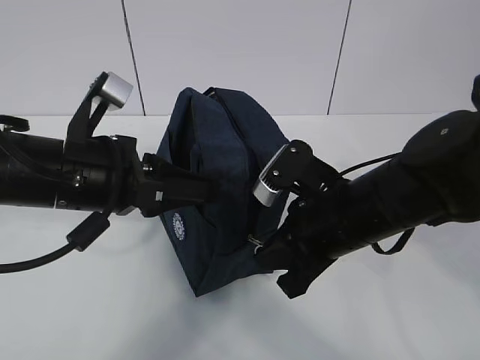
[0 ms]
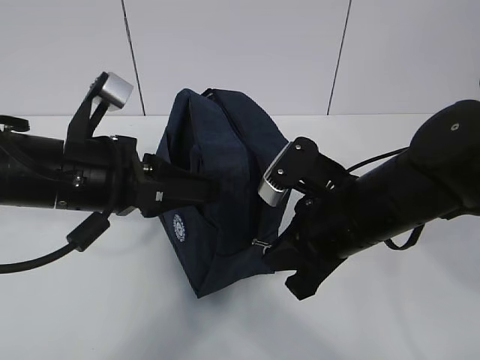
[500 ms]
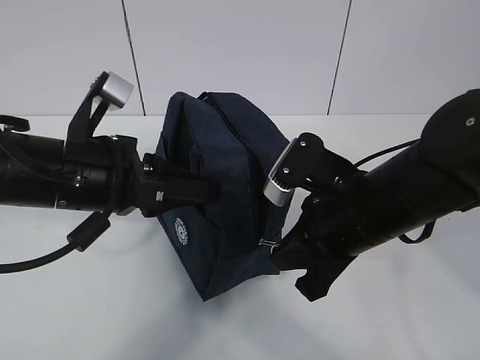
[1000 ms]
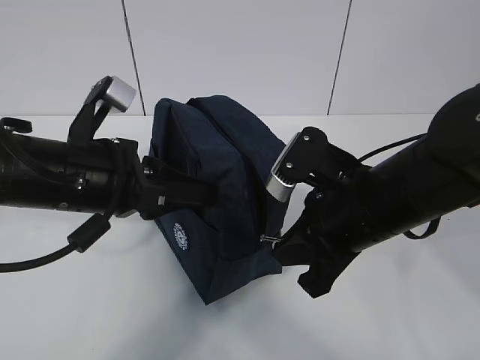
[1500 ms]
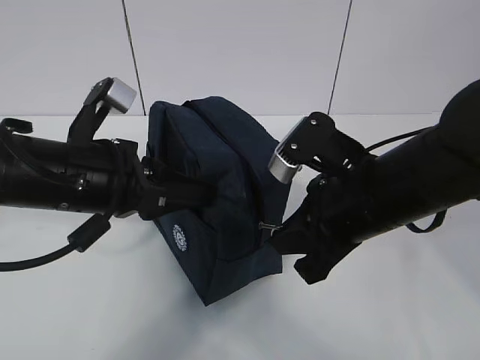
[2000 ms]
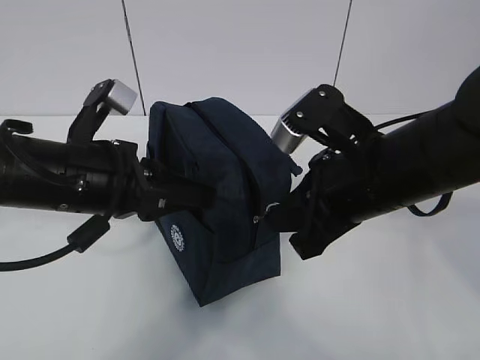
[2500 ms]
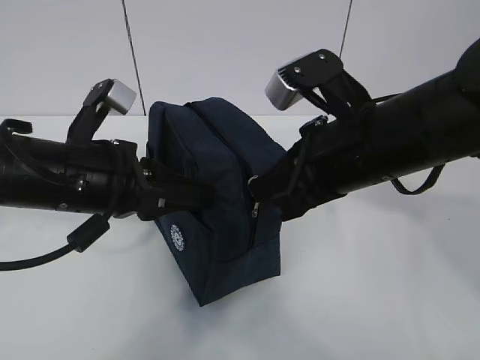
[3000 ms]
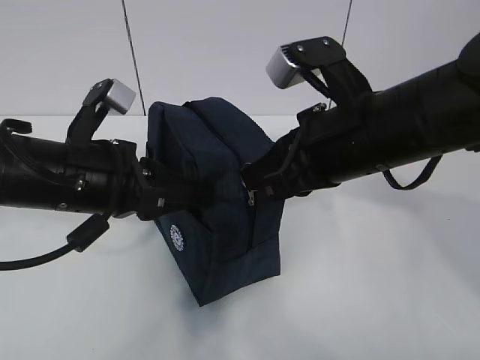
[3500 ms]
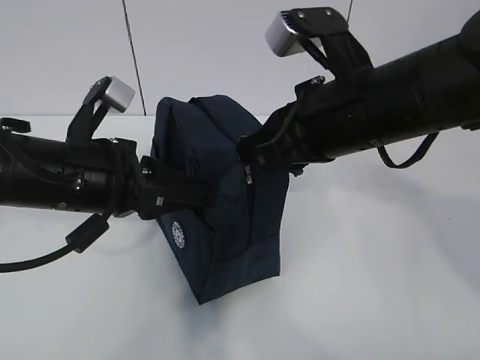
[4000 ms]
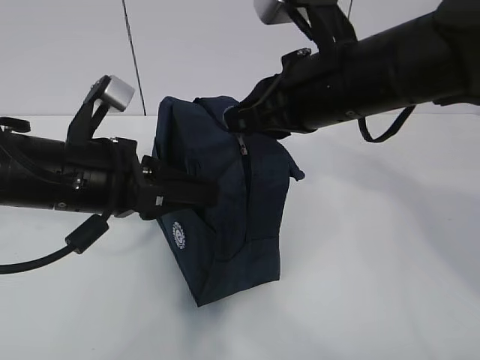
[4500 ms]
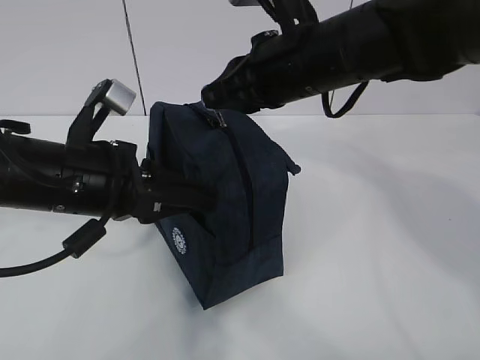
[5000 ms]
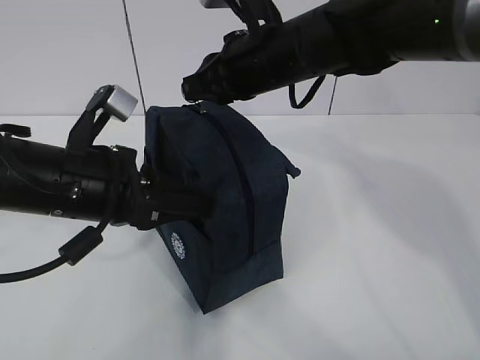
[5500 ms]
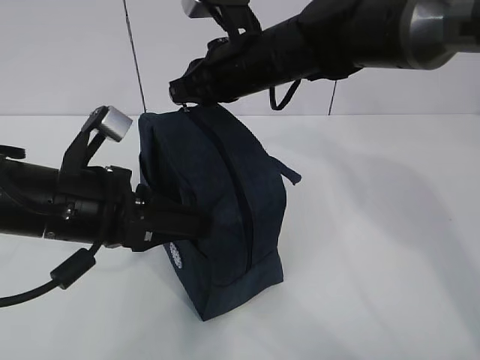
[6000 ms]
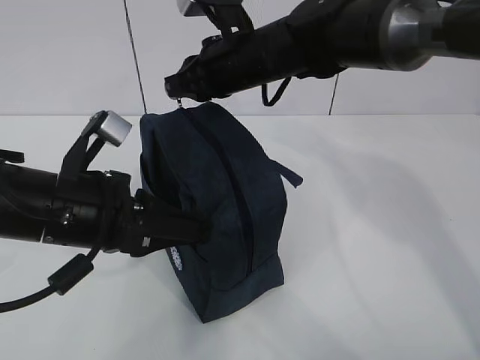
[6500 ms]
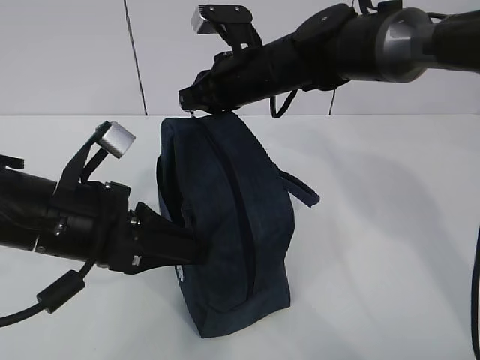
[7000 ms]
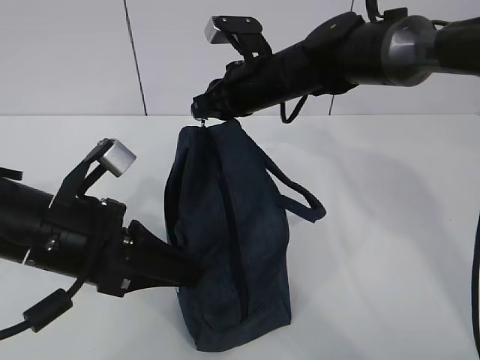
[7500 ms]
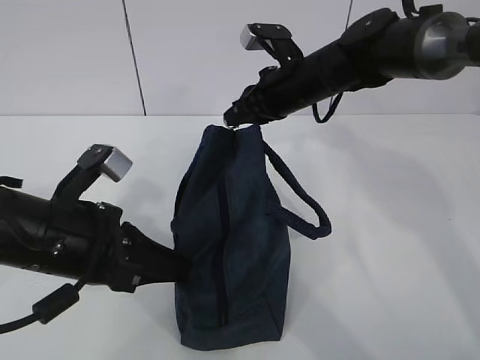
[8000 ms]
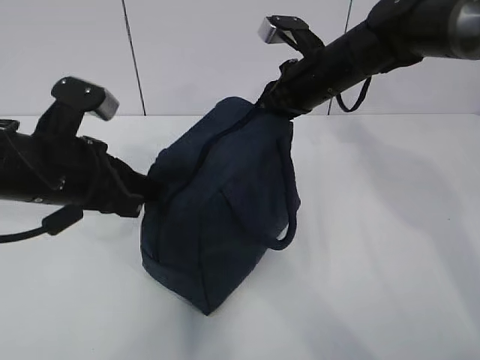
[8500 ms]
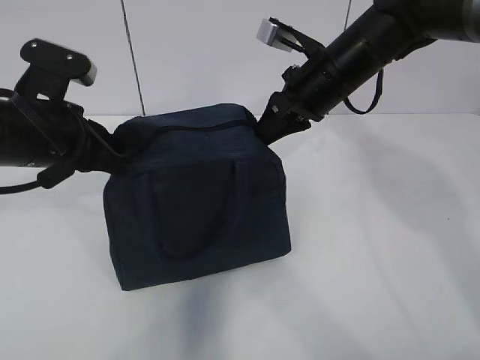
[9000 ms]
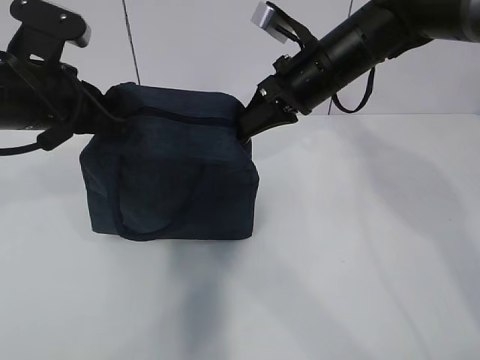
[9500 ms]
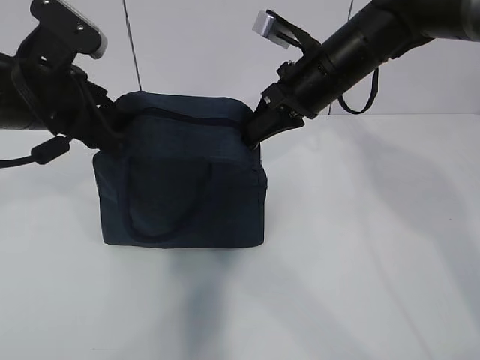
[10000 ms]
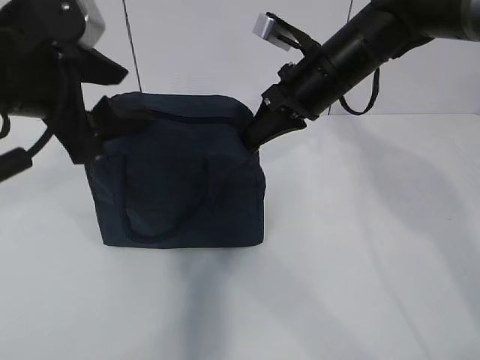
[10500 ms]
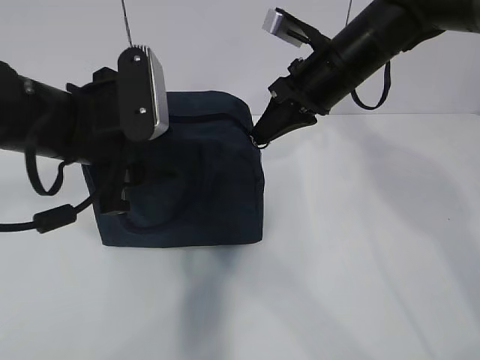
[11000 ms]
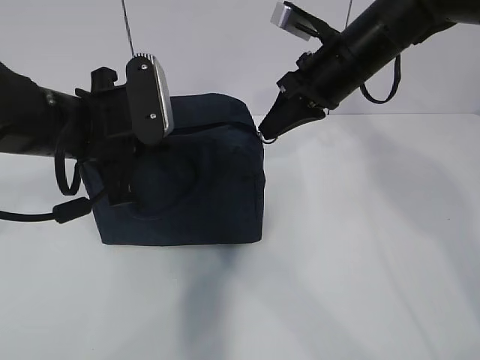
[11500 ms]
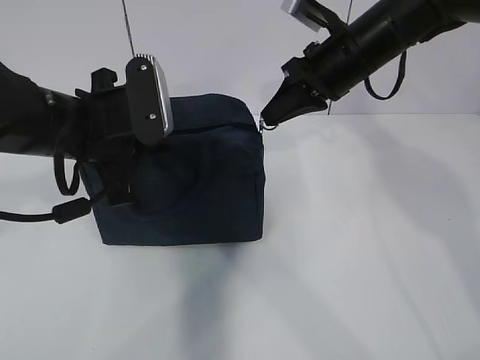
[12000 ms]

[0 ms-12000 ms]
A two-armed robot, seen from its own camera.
0 ms to 2000 ms: The grippers make only small movements.
2000 ms to 4000 ms: The right gripper moves upward, some 5 cm.
4000 ms to 6000 ms: The right gripper goes about 15 cm forward and to the left.
6000 ms to 8000 ms: The right gripper travels to the right by about 5 cm.
8000 ms to 10000 ms: The left gripper is displaced forward and upward by roughly 10 cm, and opens its fingers, while the right gripper changes place by approximately 5 cm.
10000 ms to 12000 ms: The left gripper closes up.

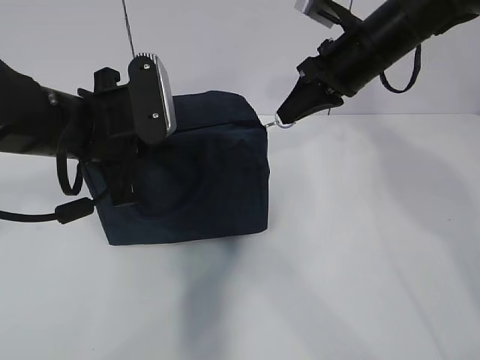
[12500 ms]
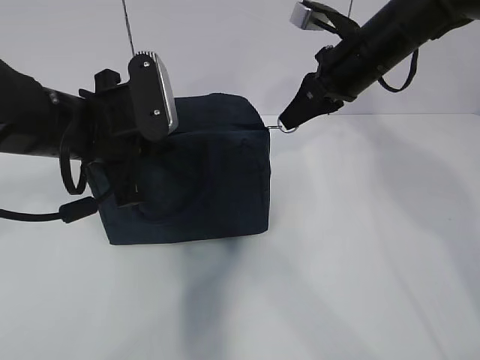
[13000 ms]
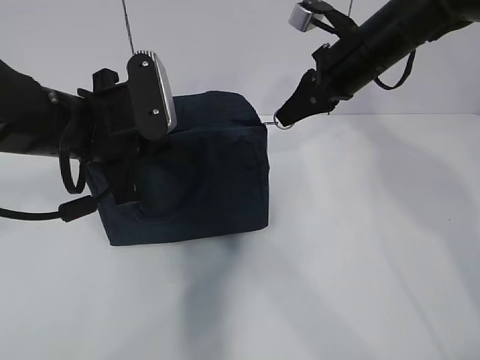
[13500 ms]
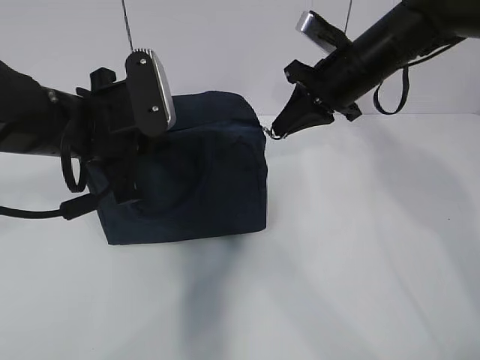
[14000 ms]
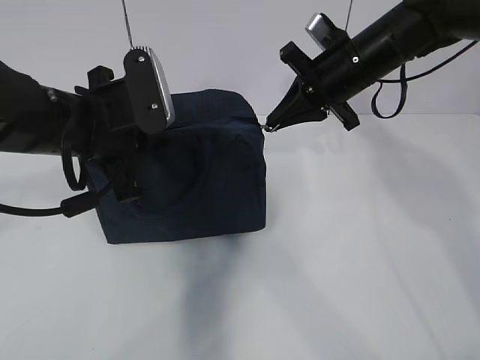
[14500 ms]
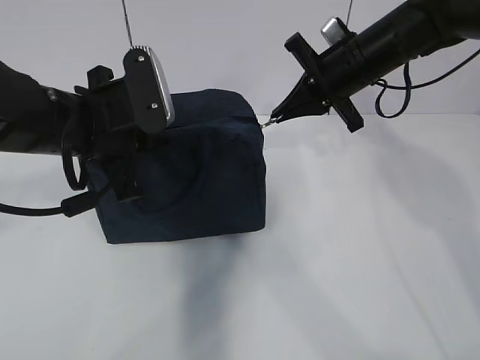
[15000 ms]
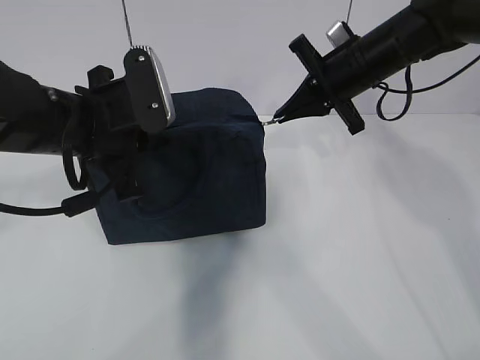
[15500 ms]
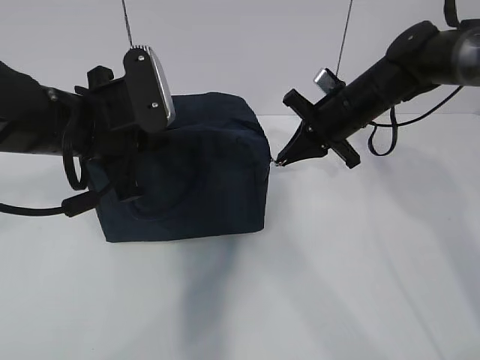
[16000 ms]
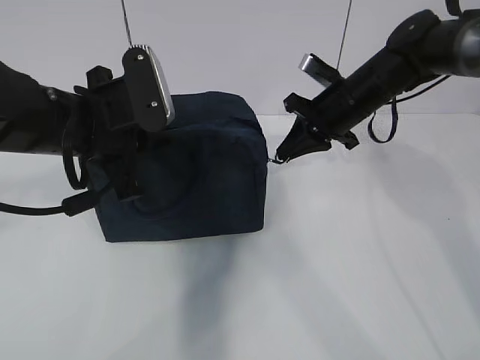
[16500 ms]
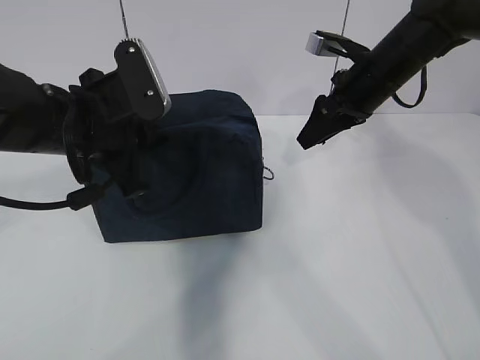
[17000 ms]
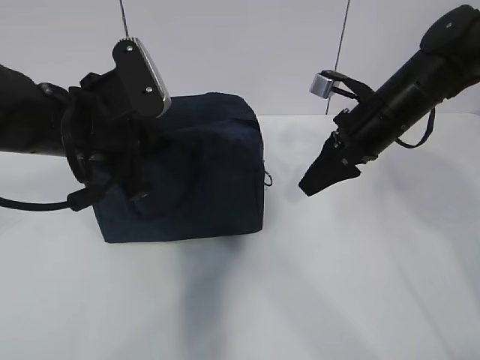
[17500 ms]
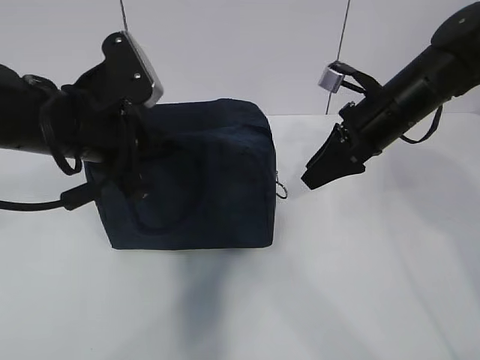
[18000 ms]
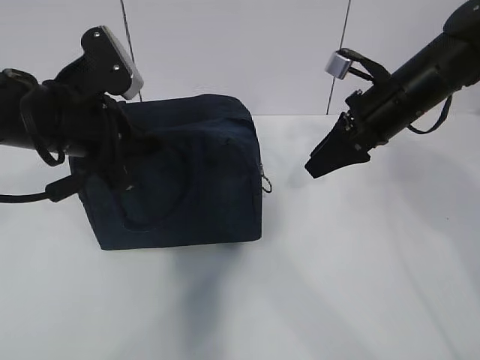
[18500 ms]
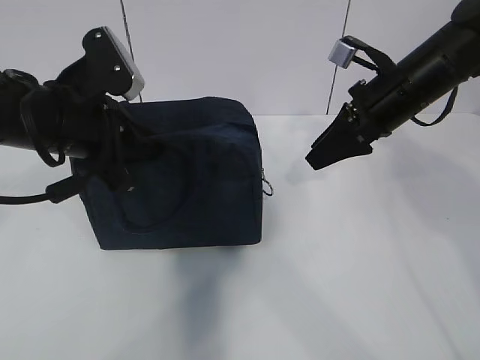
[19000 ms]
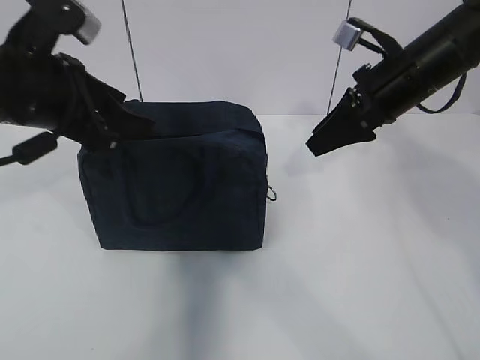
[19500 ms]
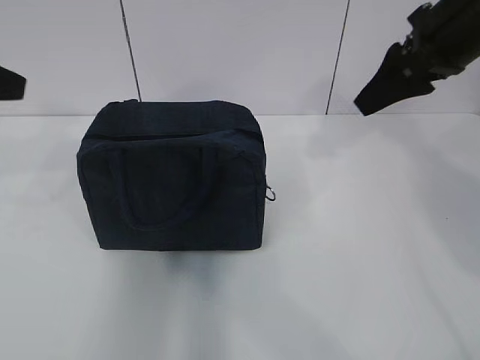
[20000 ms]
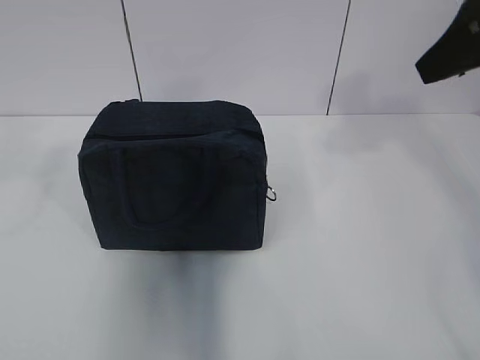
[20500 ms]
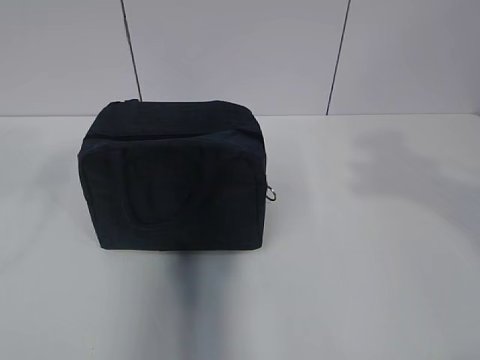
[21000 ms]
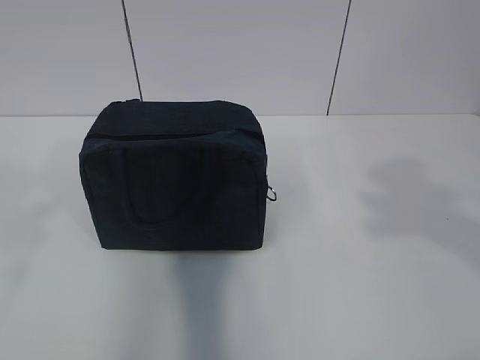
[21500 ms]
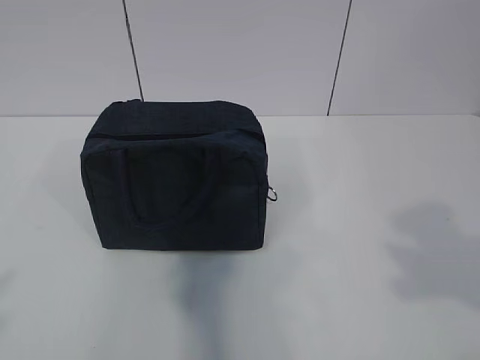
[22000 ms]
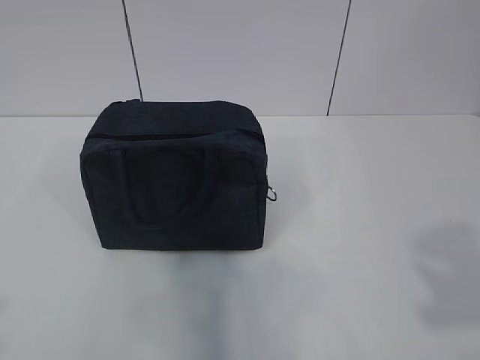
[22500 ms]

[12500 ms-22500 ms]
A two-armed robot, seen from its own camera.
Step, 12500 ms to 19500 ms: zip up the zipper to close the bag.
14500 ms to 16500 ms: The right gripper goes approximately 5 cm downward.
16500 ms to 18500 ms: The right gripper goes some 5 cm backward, and opens.
18500 ms to 20500 ms: The right gripper travels upward and backward by roughly 20 cm. Meanwhile the left gripper shifts approximately 25 cm upward, to the left and backward, and opens its fingers.
20500 ms to 22500 ms: The right gripper travels backward by some 25 cm. Meanwhile the left gripper heads backward and downward, covering some 20 cm.

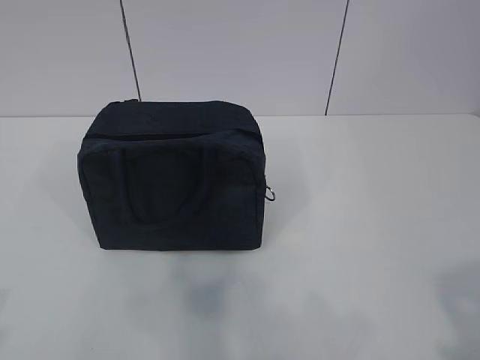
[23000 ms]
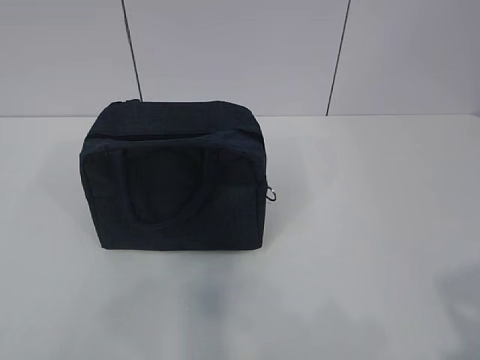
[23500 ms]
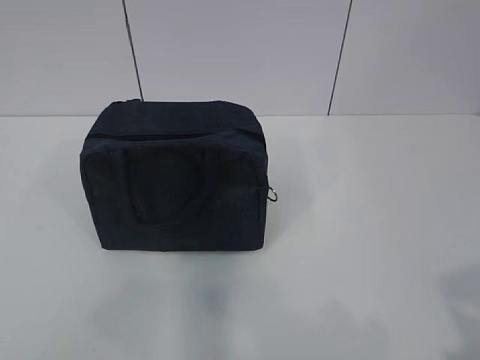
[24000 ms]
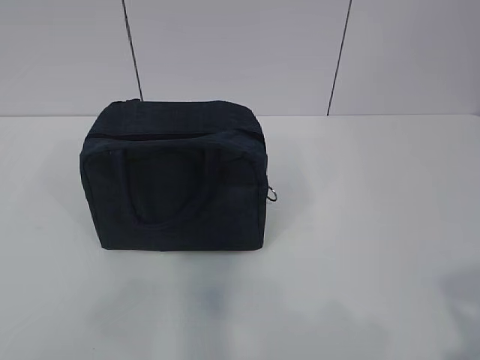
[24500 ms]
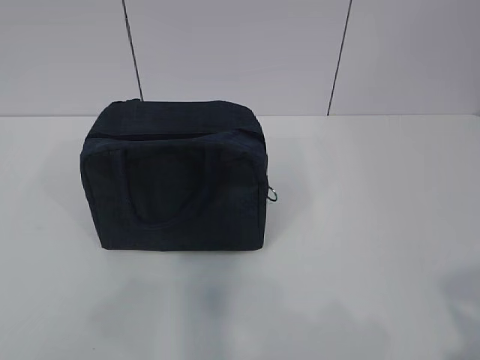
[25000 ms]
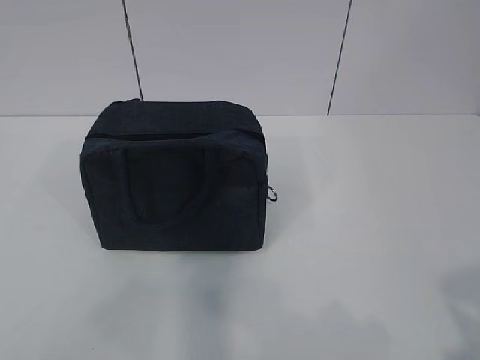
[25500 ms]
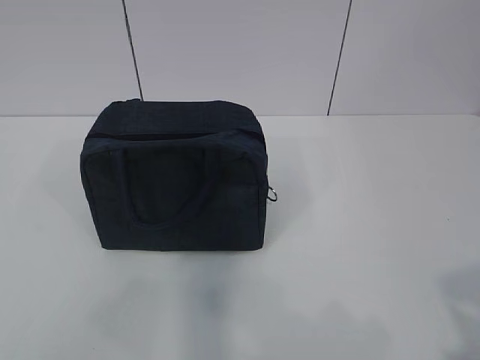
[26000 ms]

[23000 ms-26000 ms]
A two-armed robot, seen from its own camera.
23000 ms to 24500 ms: The grippers make only small movements.
24500 ms to 26000 ms: The two grippers keep their place.

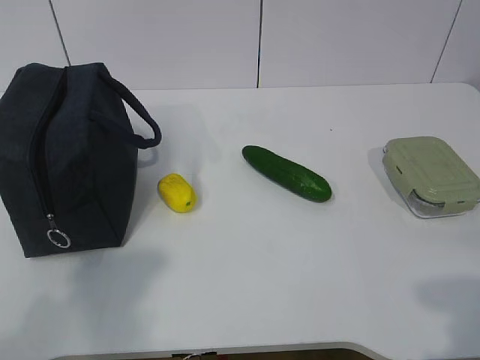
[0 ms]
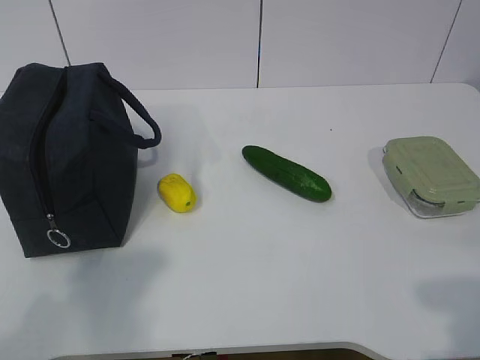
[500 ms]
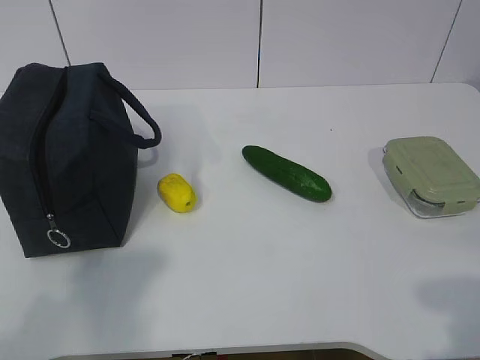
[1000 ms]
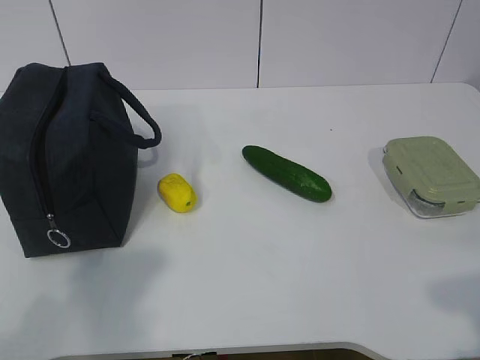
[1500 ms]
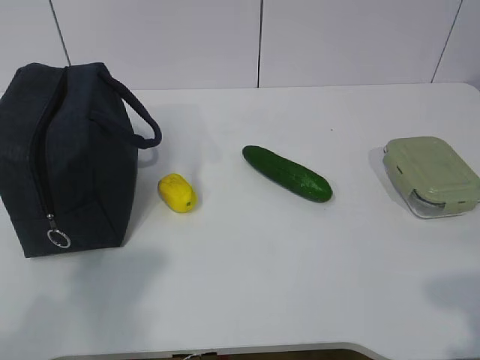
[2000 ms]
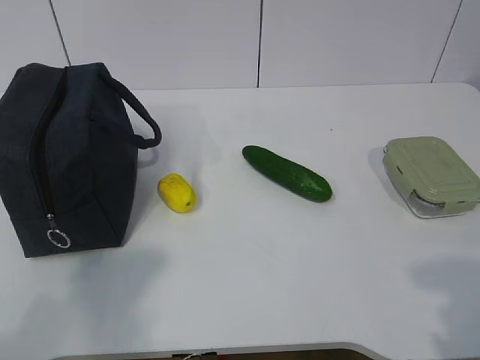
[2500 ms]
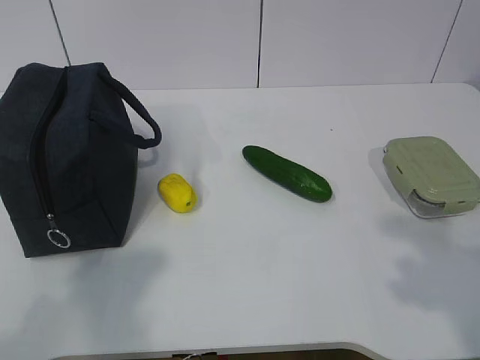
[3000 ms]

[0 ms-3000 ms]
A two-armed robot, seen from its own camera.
1500 ms to 3000 ms: The right gripper shifts roughly 5 cm forward, and opens its fingers.
